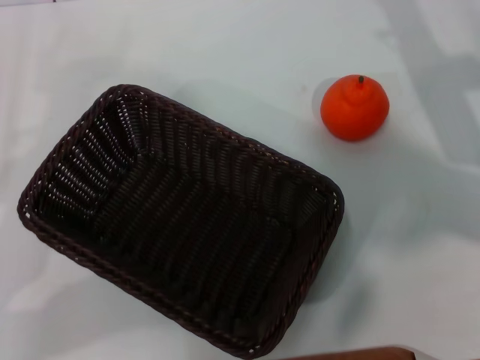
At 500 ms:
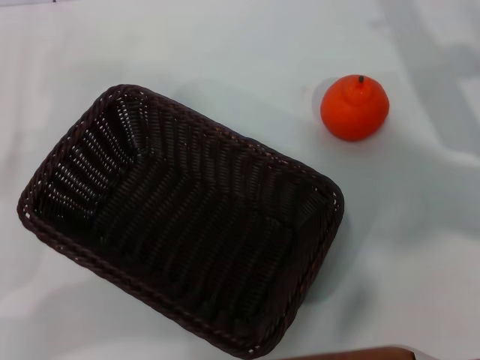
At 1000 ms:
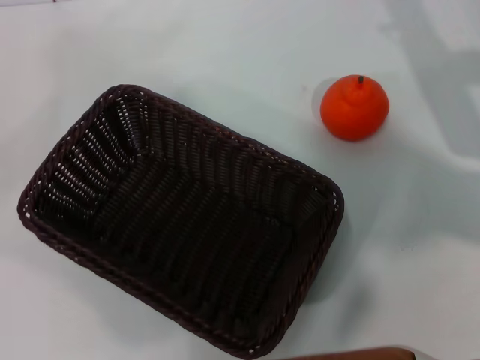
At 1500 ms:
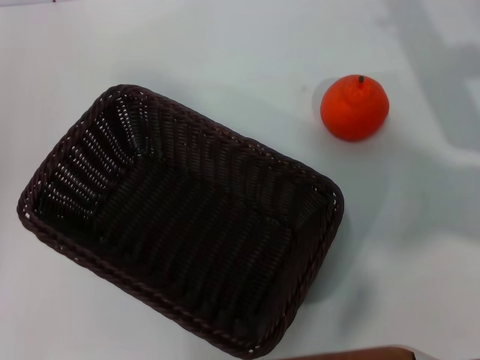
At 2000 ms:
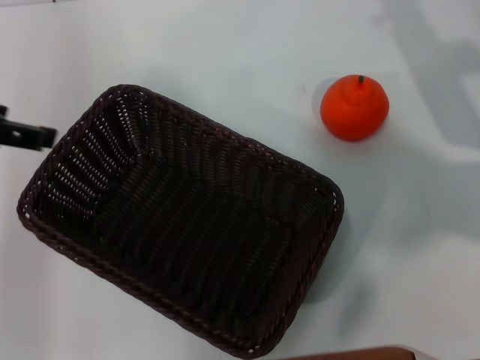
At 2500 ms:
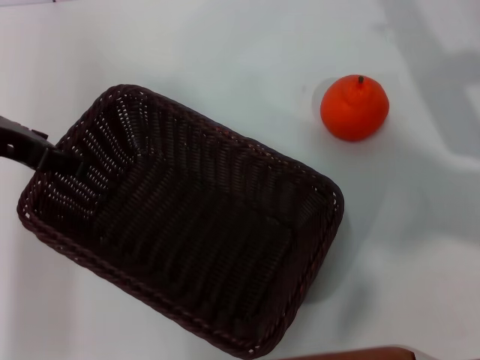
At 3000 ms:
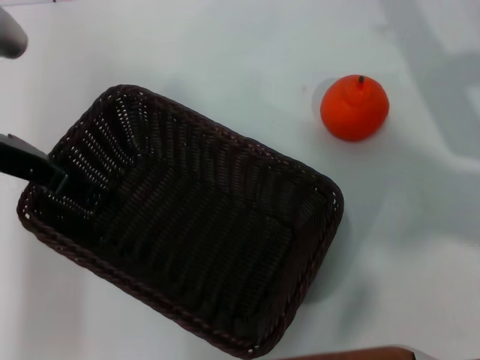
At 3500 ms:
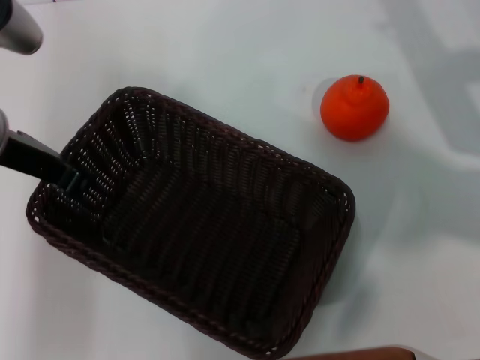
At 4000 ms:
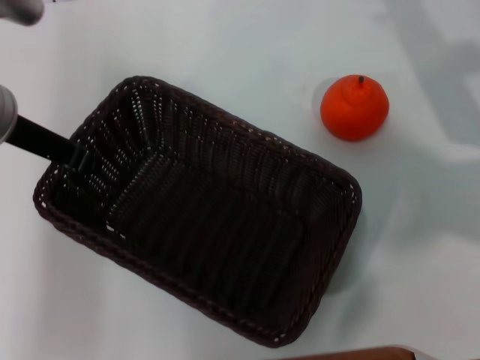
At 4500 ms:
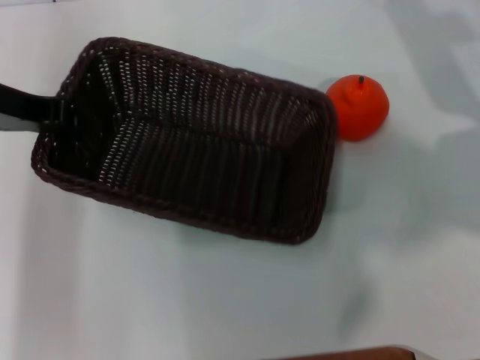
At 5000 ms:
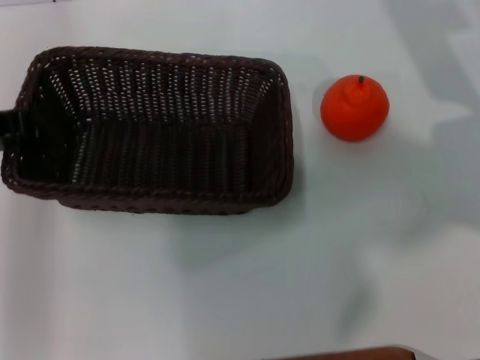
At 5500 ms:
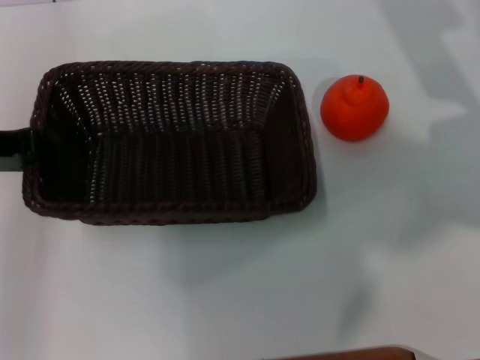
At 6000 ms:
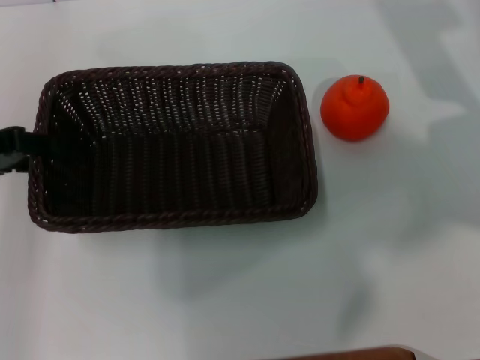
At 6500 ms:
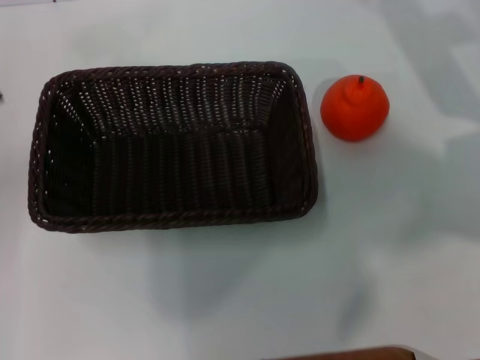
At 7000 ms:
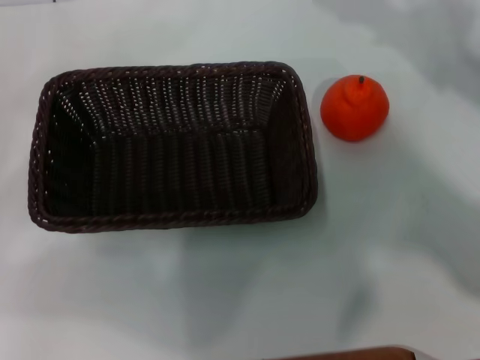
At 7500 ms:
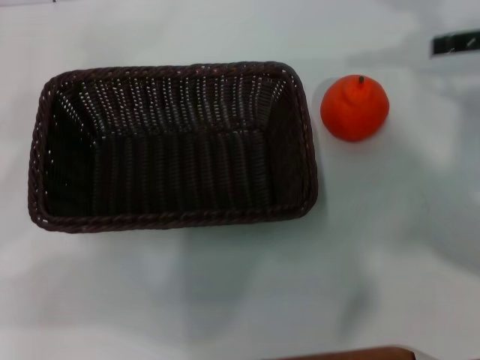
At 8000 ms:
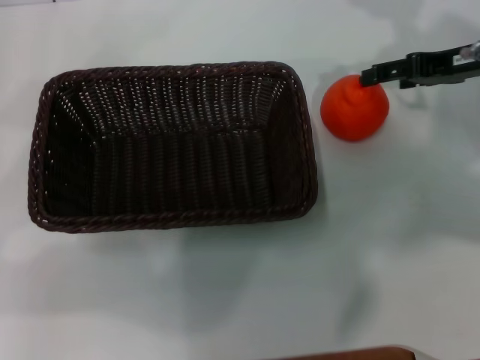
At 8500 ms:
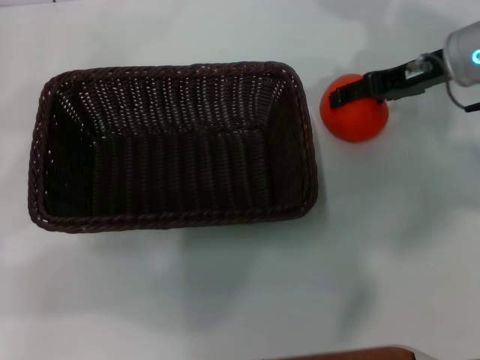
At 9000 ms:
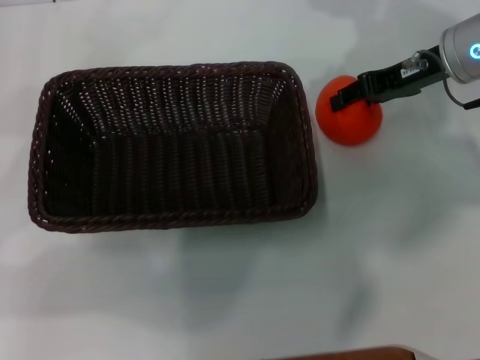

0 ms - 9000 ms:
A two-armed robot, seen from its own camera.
Task of the whole recording: the left gripper pick up the black basket and place it horizontally in the middle of the table, the right gripper pick up the orange and place it into the black basket.
Step, 0 ms - 4000 ms: Pick up the dark basket with the left gripper.
Step, 4500 ms - 6000 ms: Place the dark basket in the center of view with the left gripper.
0 ms - 2000 ms: The left gripper goes approximately 15 cm upward.
2000 ms - 4500 ms: The left gripper is displaced downward by some 5 cm, and closes.
4500 ms - 7000 ms: The right gripper moves some 5 cm. Meanwhile the left gripper shifts some 20 cm to the left and backward, and opens its fingers.
7000 ms - 9000 ms: The right gripper goes approximately 10 cm to the left and forward, and closes up.

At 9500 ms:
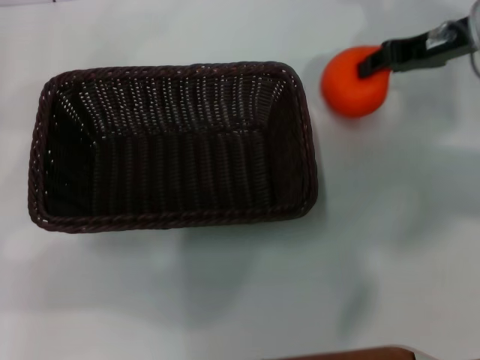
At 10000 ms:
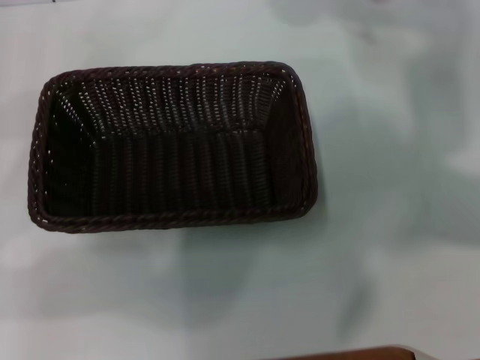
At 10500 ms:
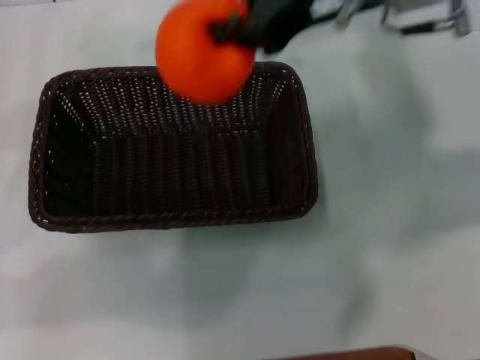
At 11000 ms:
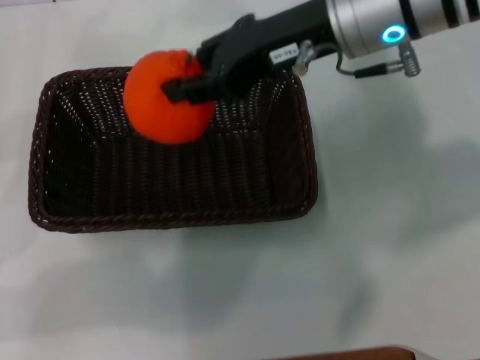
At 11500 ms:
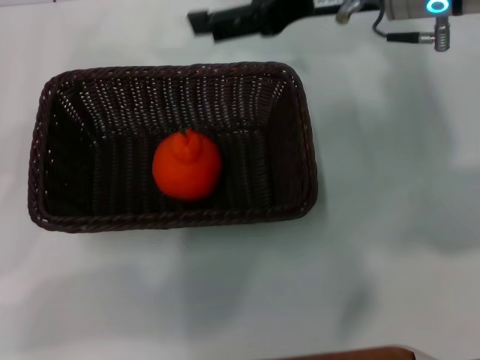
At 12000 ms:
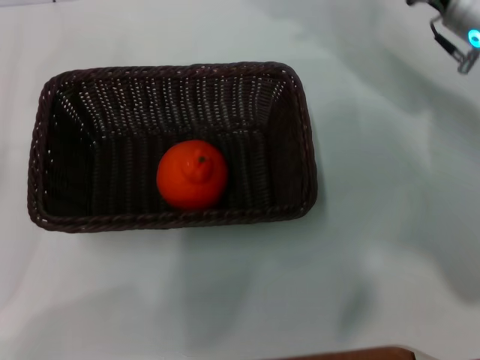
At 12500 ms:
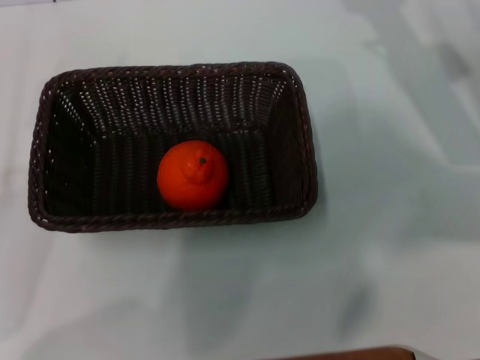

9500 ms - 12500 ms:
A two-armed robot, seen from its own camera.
Task of the whole recording: the left gripper pick up the black basket and place it horizontally in the middle of the table, the right gripper pick up the orange and place it into the black basket.
Step, 10000 ms - 11500 ms: Place the orange into the dark basket with the right gripper.
9500 ms - 11000 ms: The right gripper heads to the left and upward, covering some 15 cm.
11000 ms - 12500 ms: The left gripper heads downward, covering approximately 5 cm; the right gripper heads to the right and downward, covering some 20 cm, and opens up.
